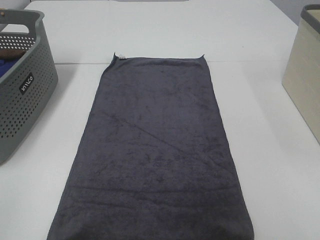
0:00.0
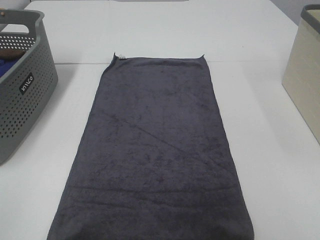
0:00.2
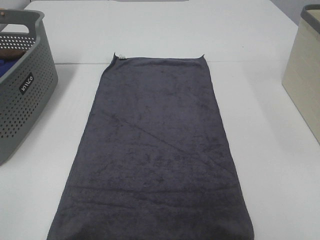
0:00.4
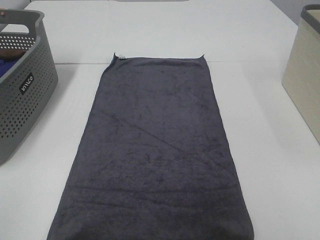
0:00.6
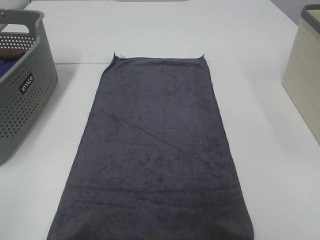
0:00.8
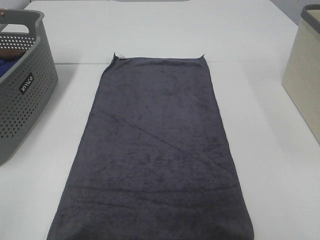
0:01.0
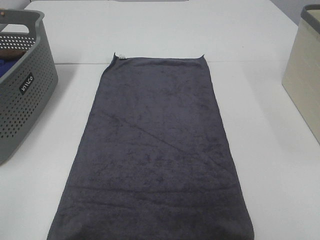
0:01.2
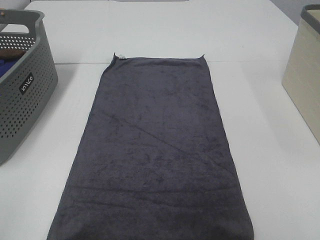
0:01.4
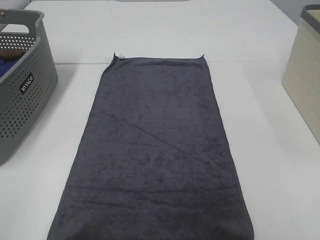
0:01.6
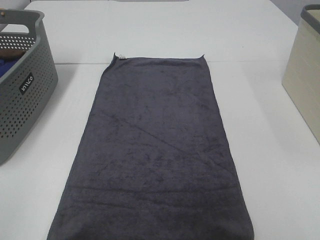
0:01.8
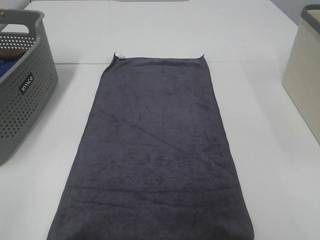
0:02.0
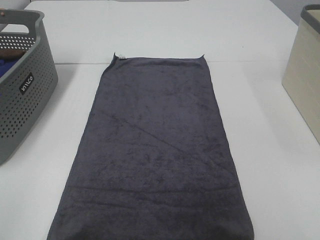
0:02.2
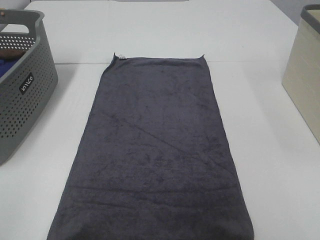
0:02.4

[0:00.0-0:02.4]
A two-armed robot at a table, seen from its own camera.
Task of the whole recording: Remove the towel and place it.
0:01.2 to 0:02.4: Both grippers stay put.

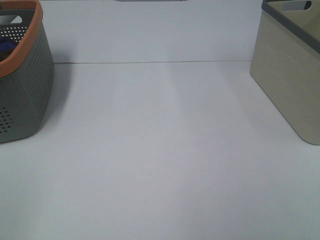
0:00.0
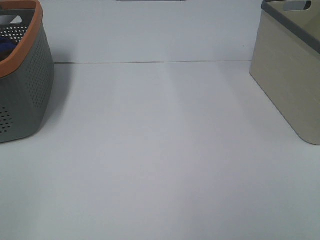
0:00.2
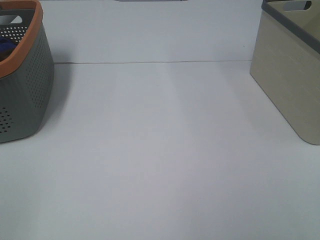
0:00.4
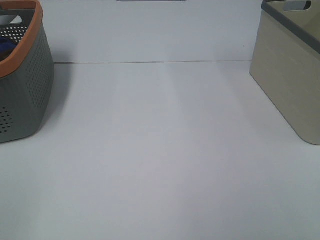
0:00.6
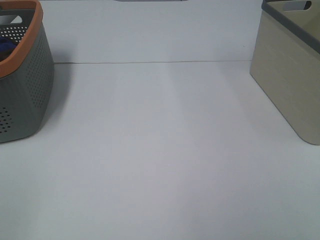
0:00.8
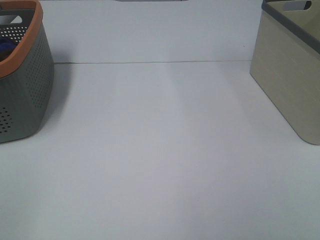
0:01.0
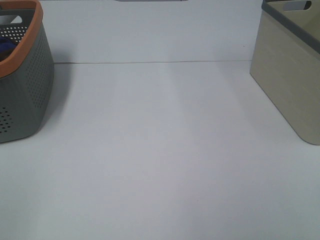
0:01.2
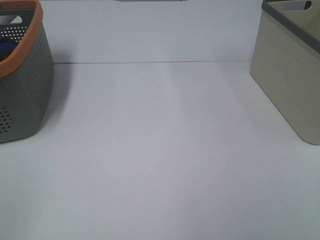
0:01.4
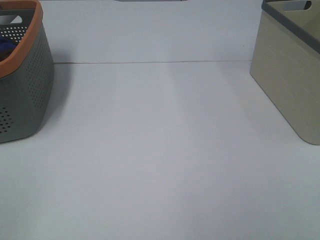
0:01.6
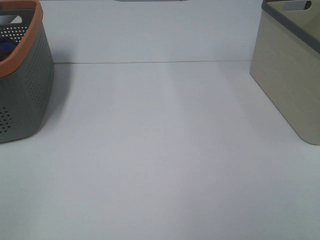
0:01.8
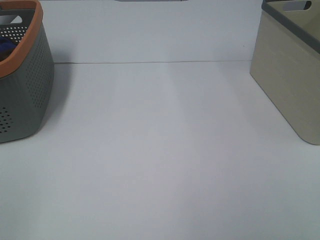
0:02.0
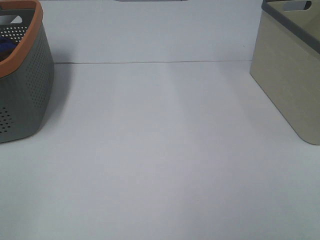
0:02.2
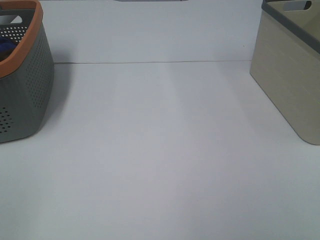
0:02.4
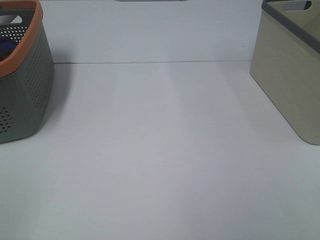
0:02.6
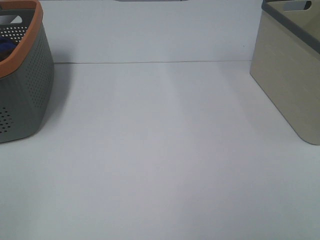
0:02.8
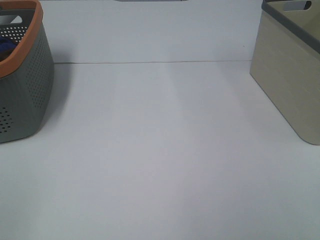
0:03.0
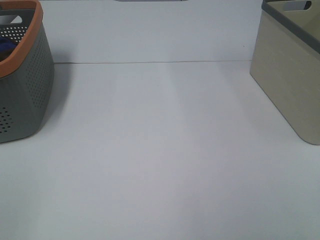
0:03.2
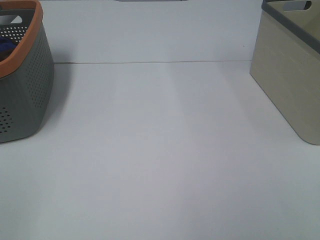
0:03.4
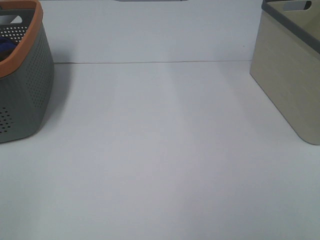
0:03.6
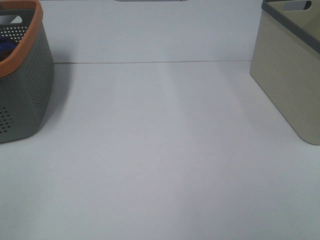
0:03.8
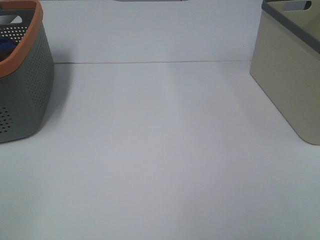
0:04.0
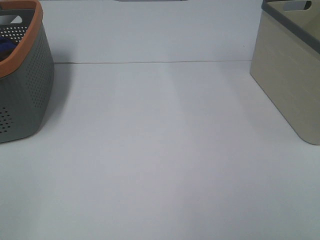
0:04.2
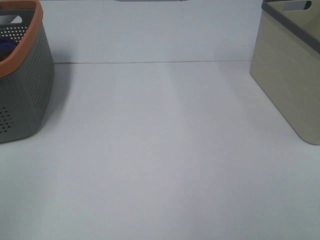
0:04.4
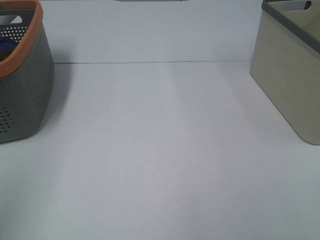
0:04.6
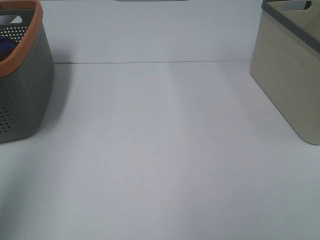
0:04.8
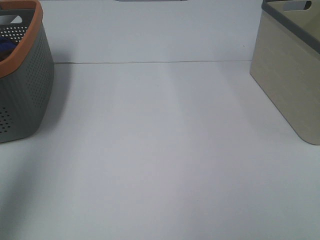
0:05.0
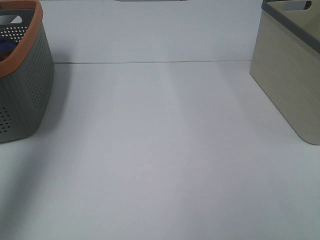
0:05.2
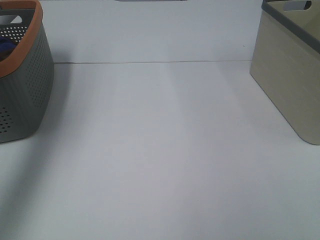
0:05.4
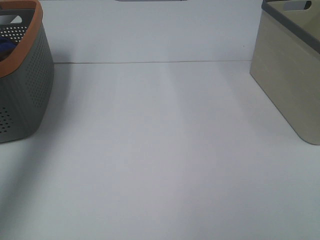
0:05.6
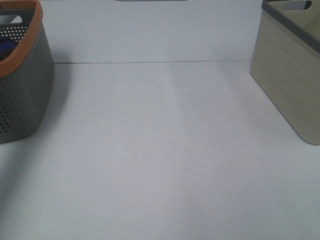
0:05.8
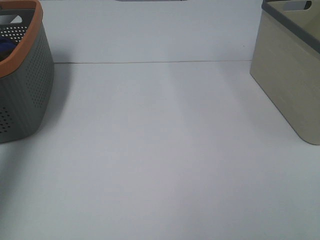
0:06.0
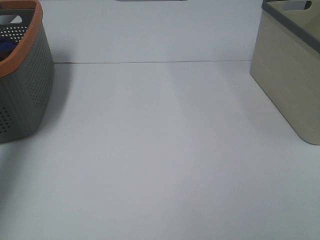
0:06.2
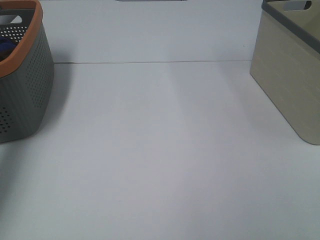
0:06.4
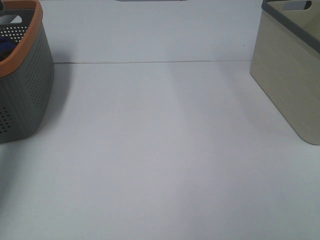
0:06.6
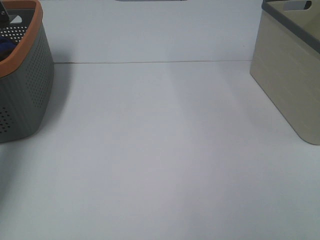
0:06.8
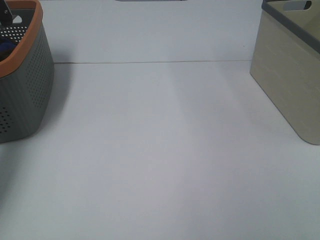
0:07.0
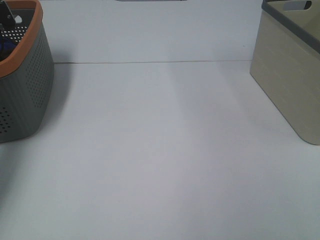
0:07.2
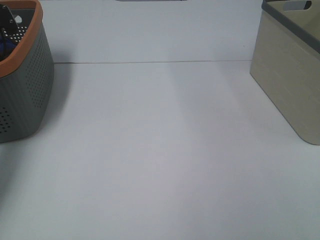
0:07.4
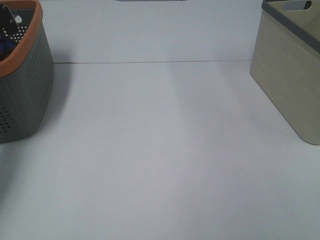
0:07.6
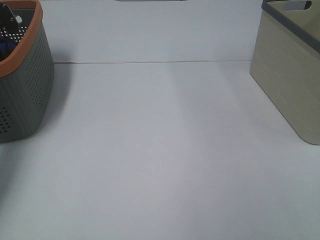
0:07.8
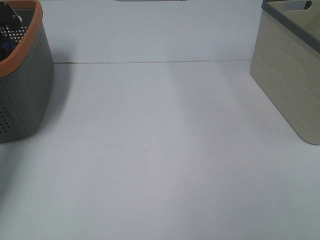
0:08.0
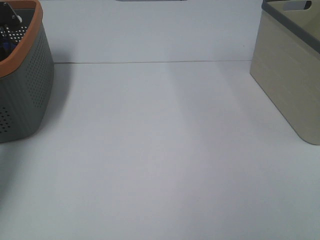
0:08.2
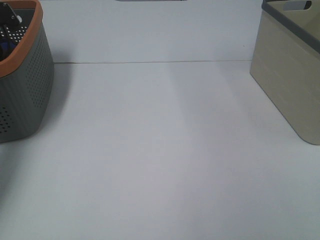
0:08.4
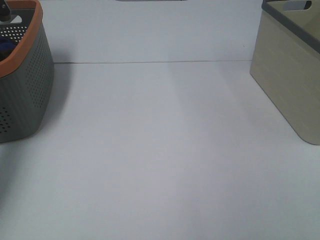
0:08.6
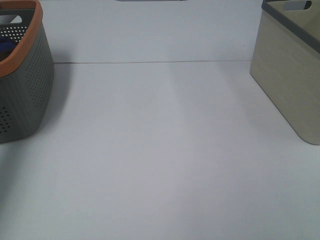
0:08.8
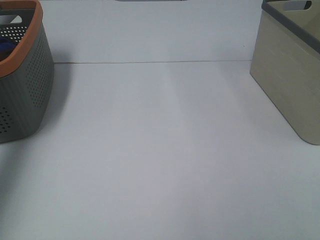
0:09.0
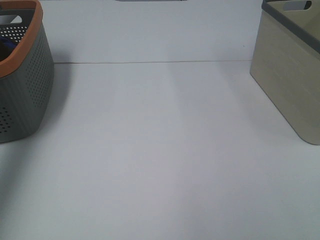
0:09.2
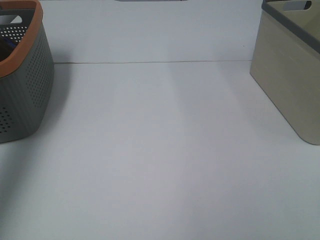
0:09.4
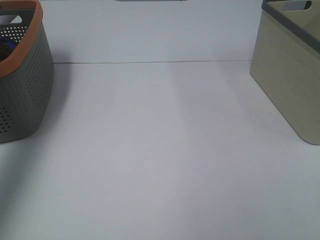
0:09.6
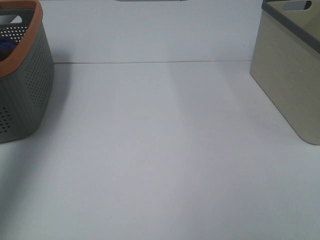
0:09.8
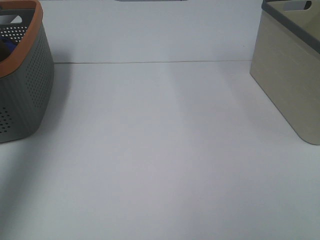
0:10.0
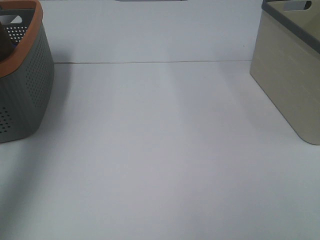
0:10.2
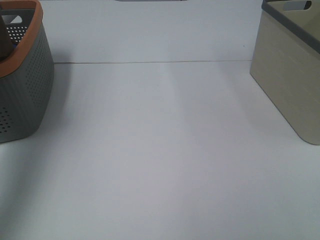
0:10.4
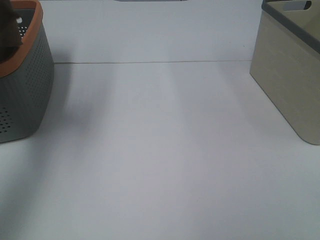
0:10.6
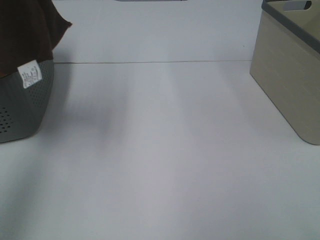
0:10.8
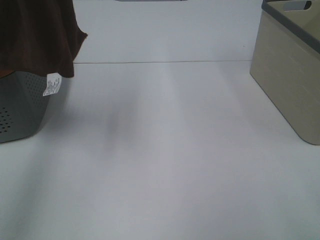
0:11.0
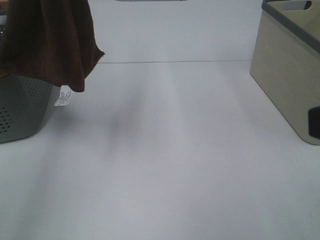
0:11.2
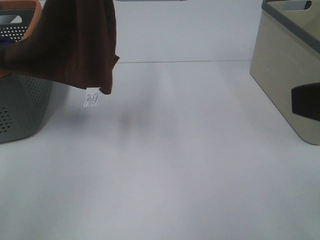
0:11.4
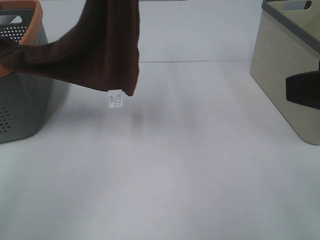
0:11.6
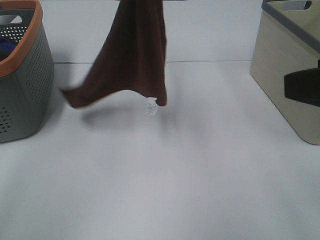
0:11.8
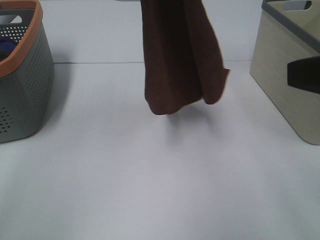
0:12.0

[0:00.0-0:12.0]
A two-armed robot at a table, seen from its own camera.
Task of the whole recording: Remove the towel and place it.
0:00.0 to 0:03.0: Neither gripper changes place.
0:04.4 to 0:06.0: The left gripper travels forward by approximately 40 cm.
0:09.0 to 0:10.4: The left gripper moves upward and backward, approximately 30 cm.
0:10.4 to 0:12.0: The right gripper travels forward by approximately 15 cm. The left gripper shifts roughly 25 cm to the right and downward.

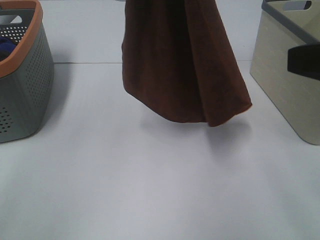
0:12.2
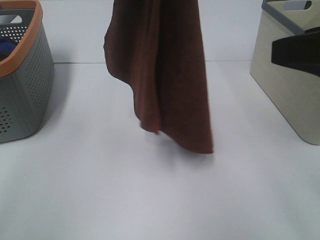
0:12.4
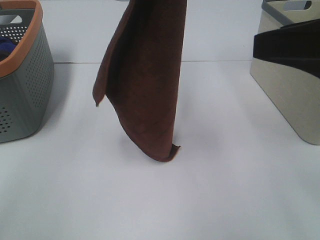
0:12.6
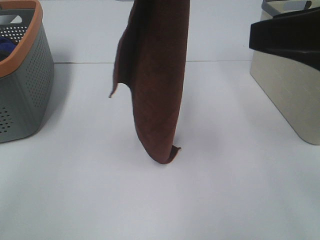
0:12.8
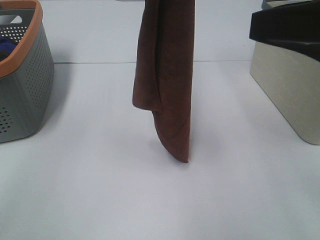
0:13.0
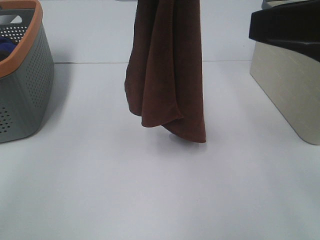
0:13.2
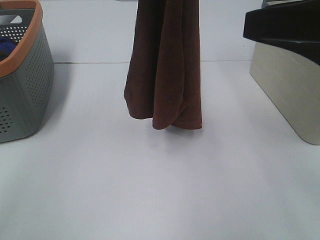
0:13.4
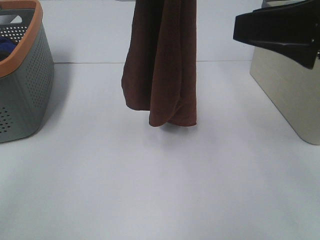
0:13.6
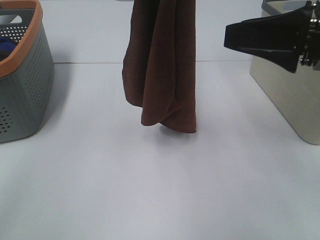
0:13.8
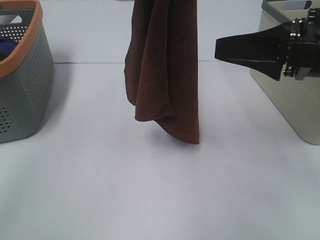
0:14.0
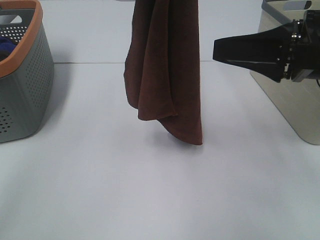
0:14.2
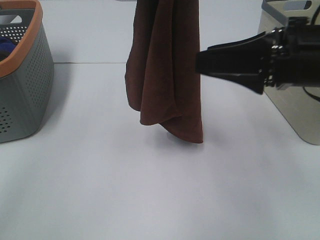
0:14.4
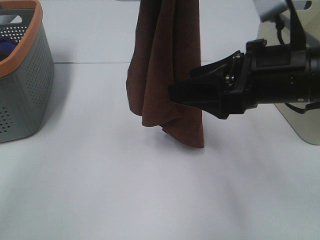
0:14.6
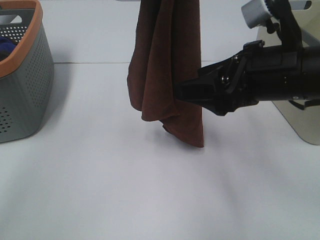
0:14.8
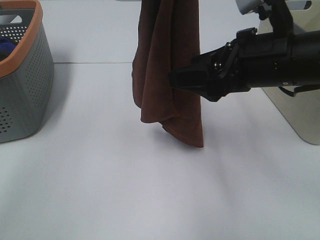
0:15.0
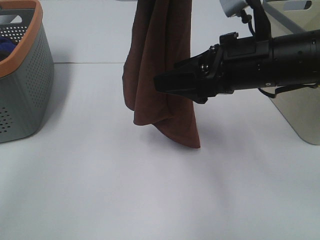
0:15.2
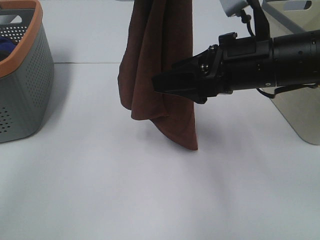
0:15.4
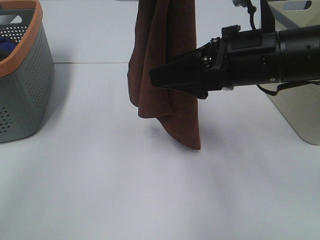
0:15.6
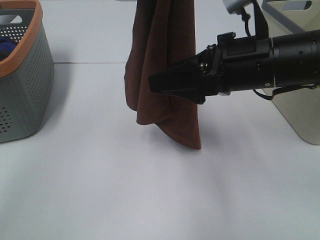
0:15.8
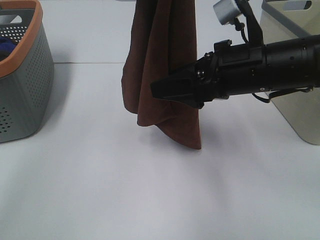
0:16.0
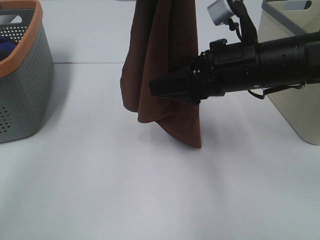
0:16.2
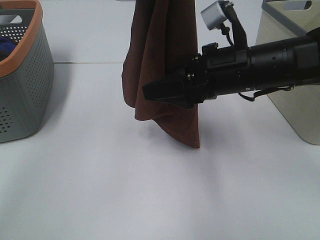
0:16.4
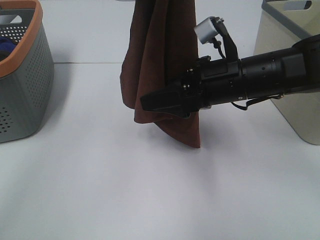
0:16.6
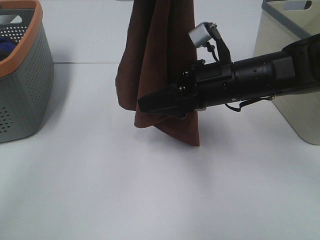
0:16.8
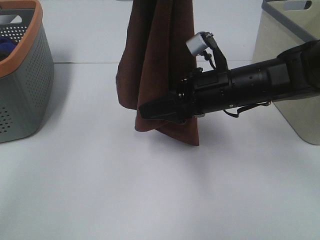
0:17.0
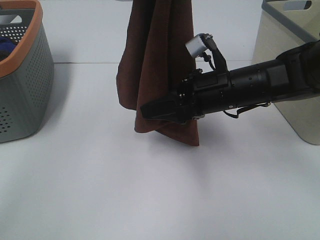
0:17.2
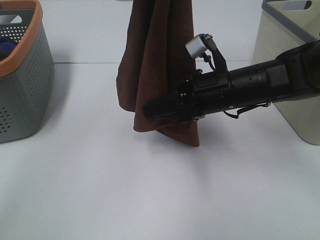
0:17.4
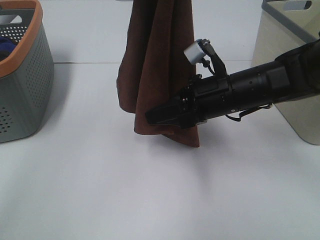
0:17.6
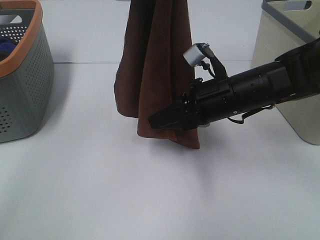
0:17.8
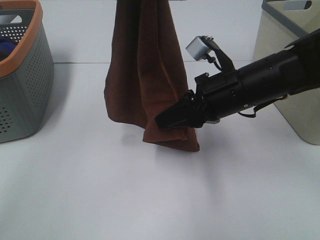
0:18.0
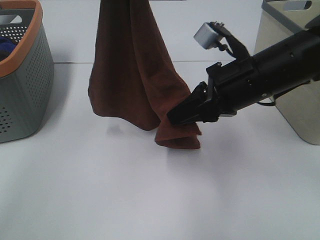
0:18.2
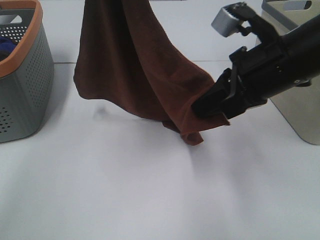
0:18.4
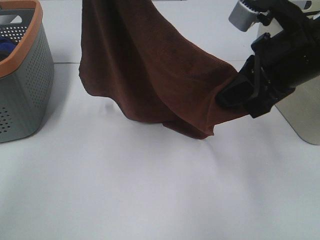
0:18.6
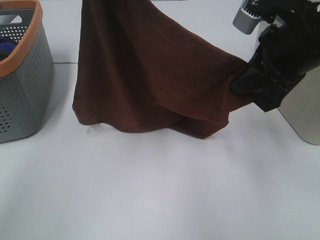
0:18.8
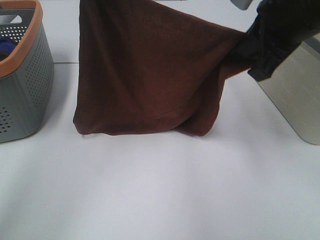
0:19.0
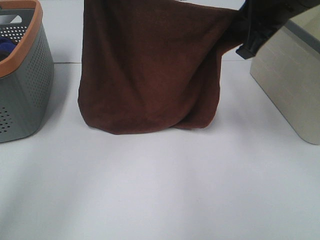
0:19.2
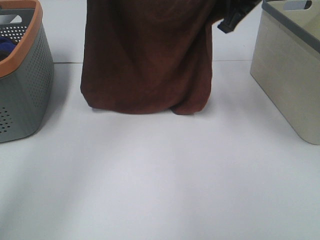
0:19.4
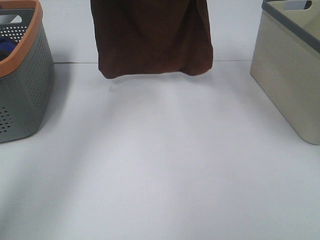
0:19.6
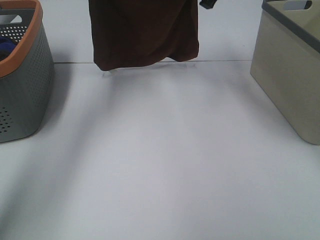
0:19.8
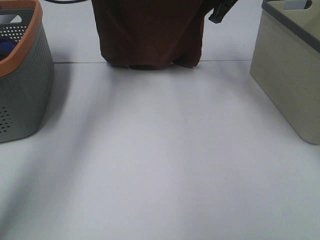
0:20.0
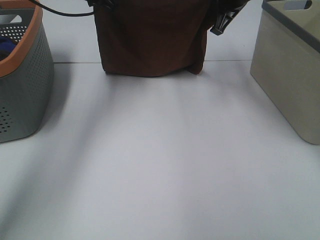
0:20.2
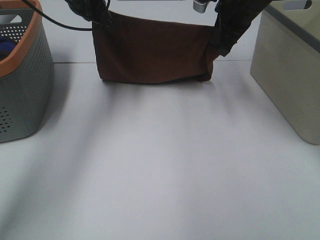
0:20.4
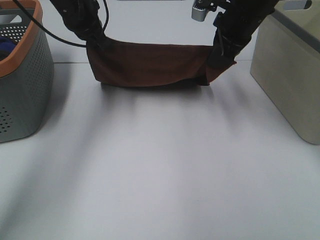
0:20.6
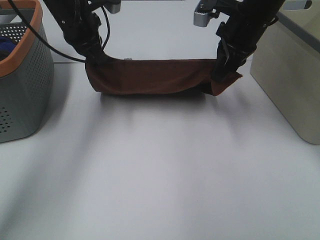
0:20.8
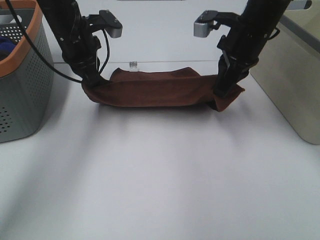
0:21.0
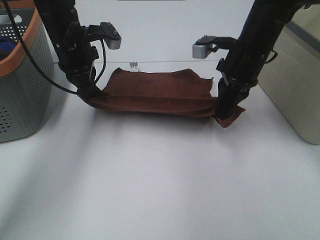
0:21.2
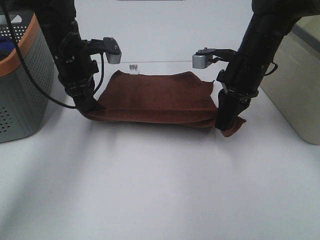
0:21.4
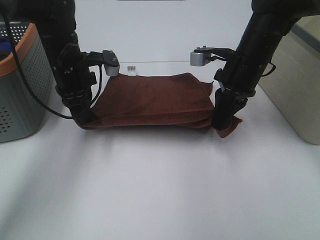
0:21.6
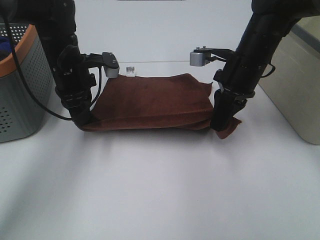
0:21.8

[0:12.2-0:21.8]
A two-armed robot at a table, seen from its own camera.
Task of the whole recording: Remove the towel and place it.
Step, 0:12.2 to 0:15.4: Right hand: grab a corner of the brown towel and straighten it.
Step, 0:15.6 to 0:17.8: Right hand: spread the brown towel flat on the table.
0:12.2 to 0:13.8: The right gripper moves forward and downward, about 10 cm.
0:13.8 to 0:15.4: The right gripper is displaced to the left and downward by roughly 10 cm.
0:15.4 to 0:17.0: The right gripper travels downward by some 5 cm.
0:17.0 to 0:18.6: The right gripper shifts approximately 10 cm upward, and closes.
0:18.6 to 0:20.2: The right gripper moves forward, about 20 cm. The left gripper moves forward and downward, about 20 cm.
0:20.2 to 0:21.8: Both grippers travel together downward and backward, roughly 15 cm.
